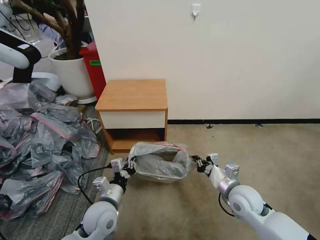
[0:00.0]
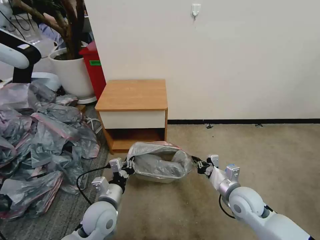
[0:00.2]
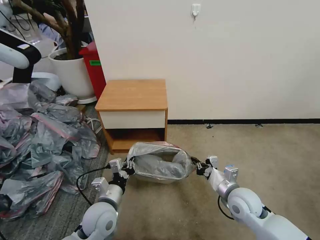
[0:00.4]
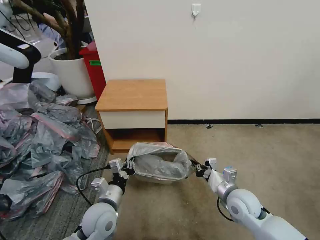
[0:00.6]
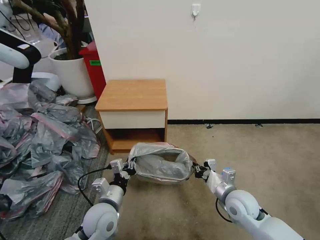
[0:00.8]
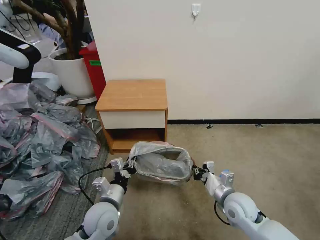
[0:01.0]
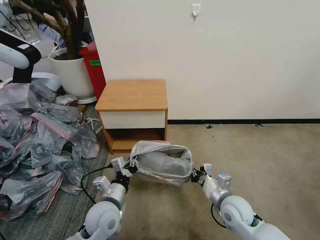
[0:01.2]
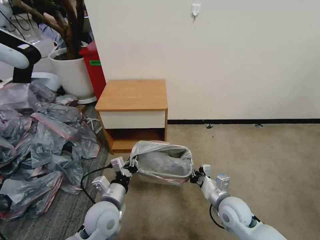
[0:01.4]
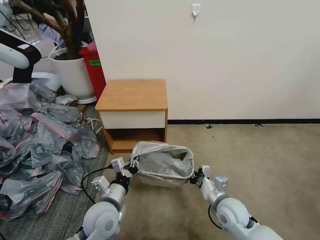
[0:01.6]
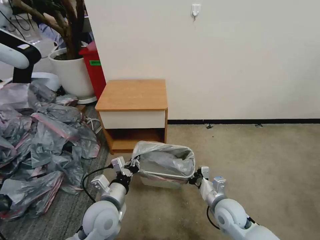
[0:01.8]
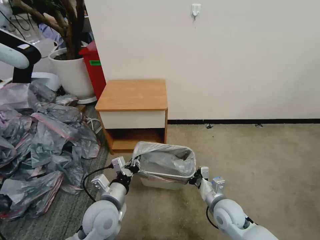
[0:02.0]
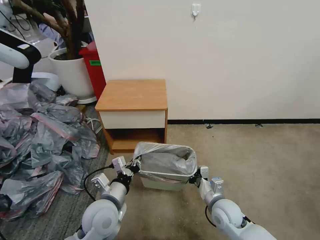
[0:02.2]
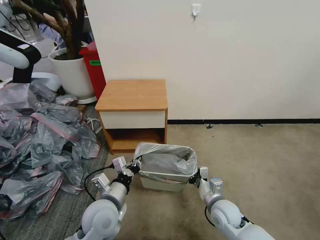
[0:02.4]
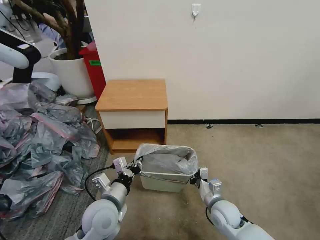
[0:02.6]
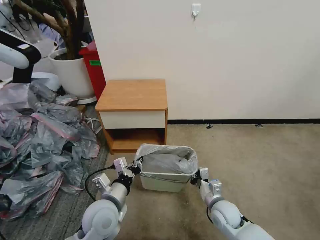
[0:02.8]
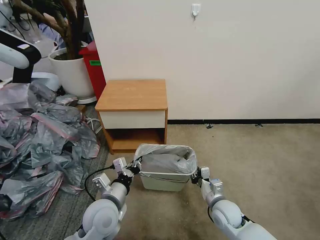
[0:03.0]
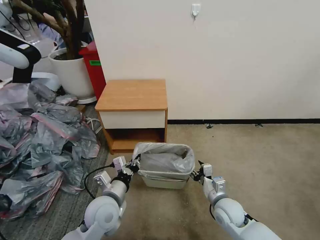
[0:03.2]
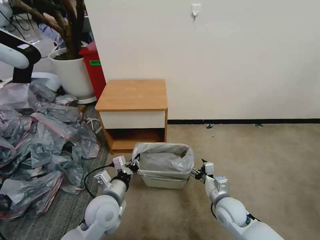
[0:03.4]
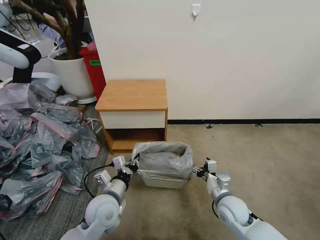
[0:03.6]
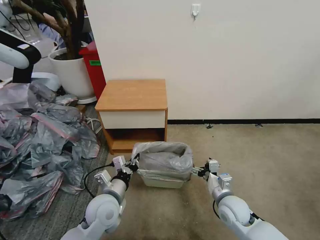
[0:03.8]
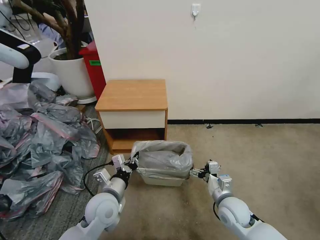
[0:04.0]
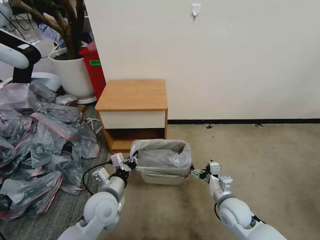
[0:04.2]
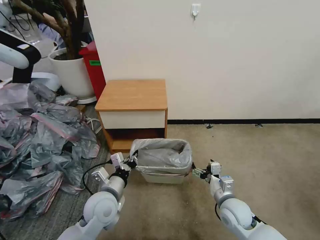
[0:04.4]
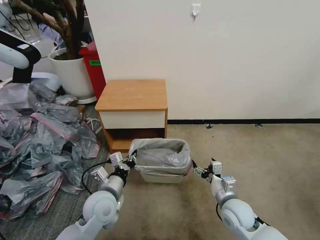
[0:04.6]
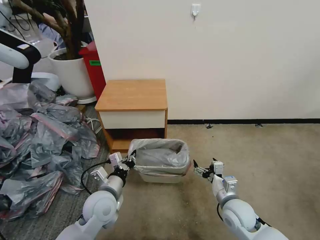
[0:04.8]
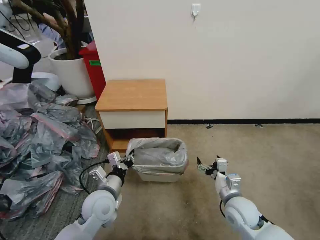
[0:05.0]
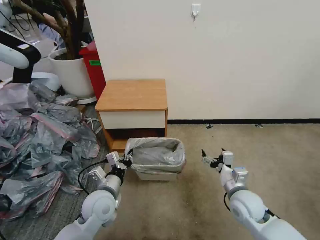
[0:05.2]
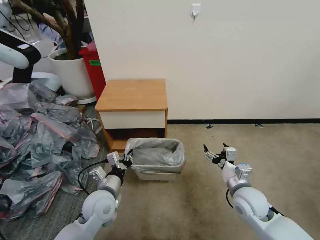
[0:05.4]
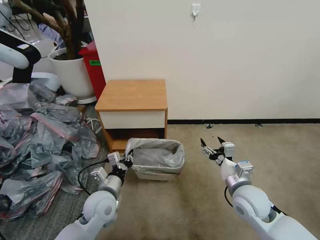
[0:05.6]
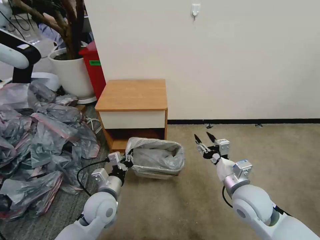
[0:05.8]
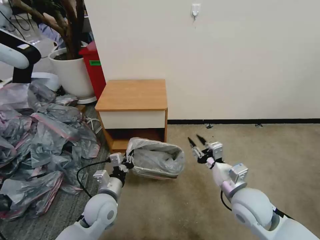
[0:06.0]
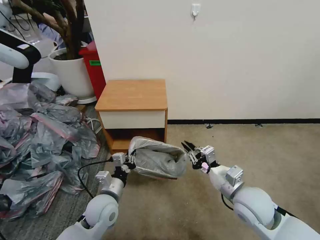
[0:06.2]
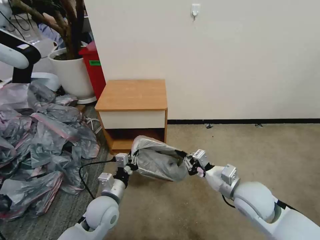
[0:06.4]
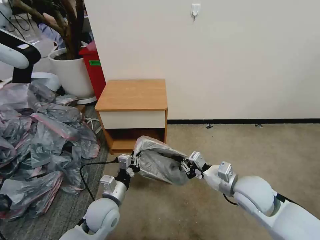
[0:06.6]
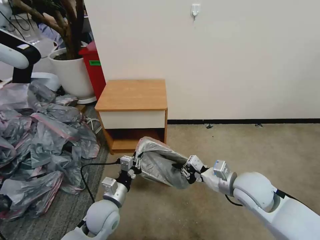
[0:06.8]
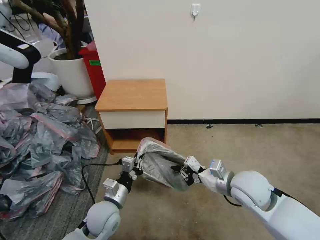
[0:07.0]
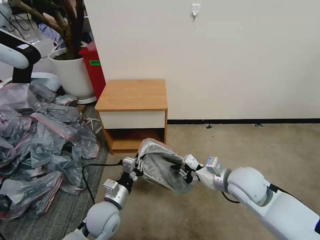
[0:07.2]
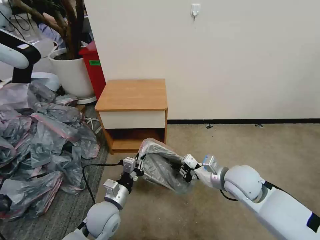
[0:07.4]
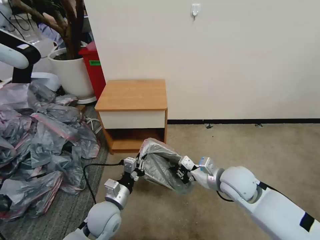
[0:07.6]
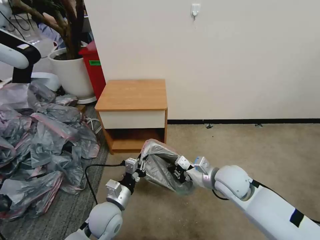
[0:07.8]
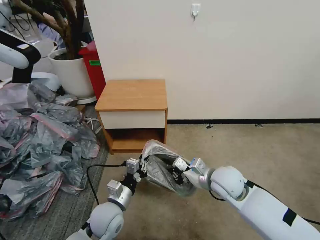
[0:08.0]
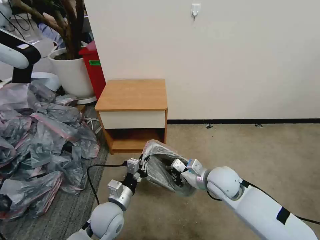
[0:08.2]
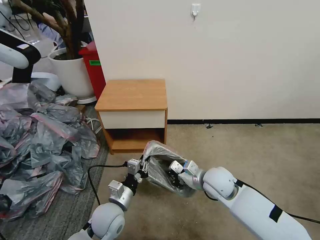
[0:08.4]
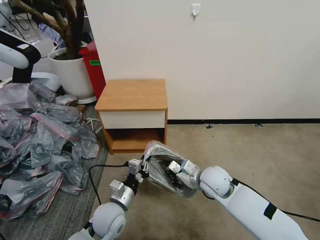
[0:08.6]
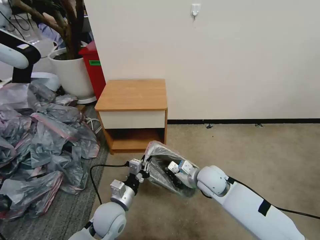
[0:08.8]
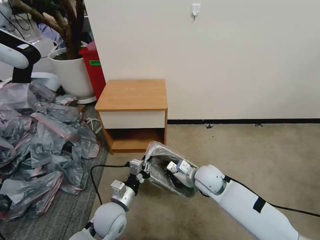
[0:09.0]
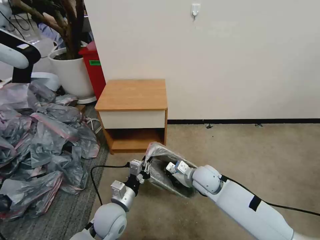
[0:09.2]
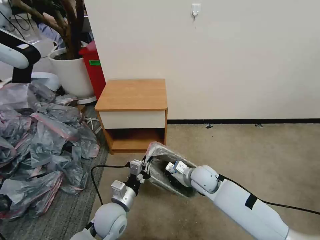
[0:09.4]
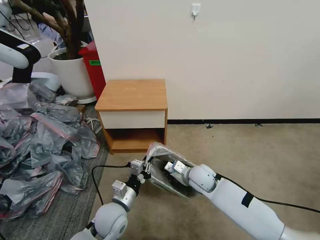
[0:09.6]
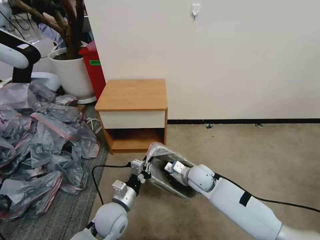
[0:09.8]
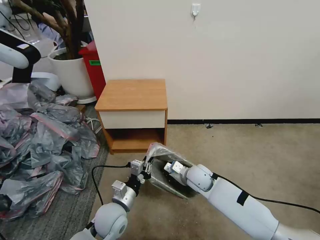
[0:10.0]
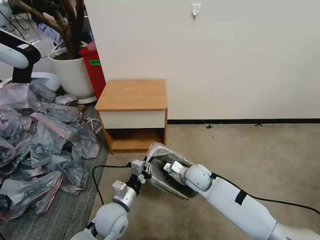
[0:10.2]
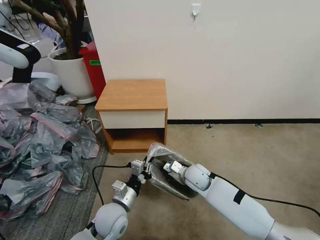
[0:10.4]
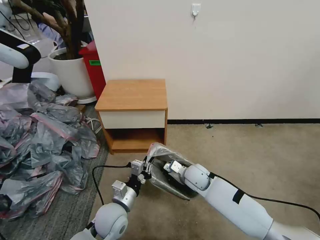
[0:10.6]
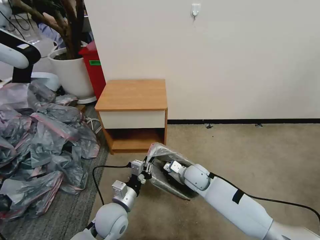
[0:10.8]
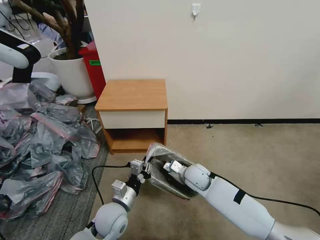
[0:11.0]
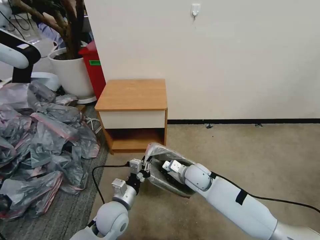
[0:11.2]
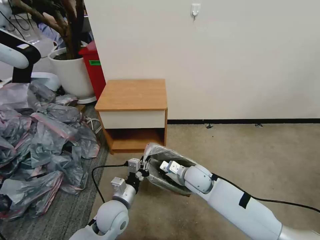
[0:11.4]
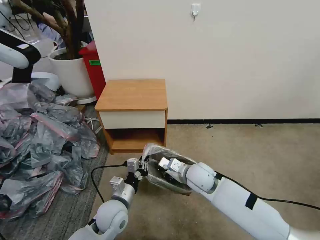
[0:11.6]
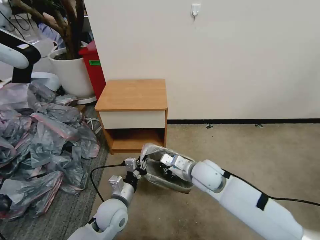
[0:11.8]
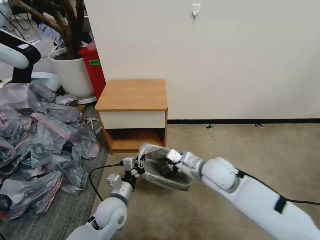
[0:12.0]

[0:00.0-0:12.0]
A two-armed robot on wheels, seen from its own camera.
Task of the whole recording: Pick up the garbage bag from the table and place it over the trash can.
0:00.0 to 0:01.6: The right gripper shifts by roughly 5 cm.
0:01.6 to 0:03.0: There are only small adjustments of the grippers.
0:03.0 to 0:04.4: The right gripper opens its fingers.
0:04.4 to 0:06.0: The right gripper heads upward, covering about 10 cm, and closes its fingers.
0:06.0 to 0:07.6: The right gripper shifts about 5 cm forward.
0:07.6 to 0:09.0: The right gripper goes some 10 cm downward and to the left.
0:09.0 to 0:10.4: The right gripper moves roughly 5 cm.
0:10.4 to 0:12.0: The right gripper goes approximately 15 cm upward.

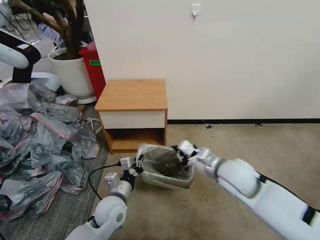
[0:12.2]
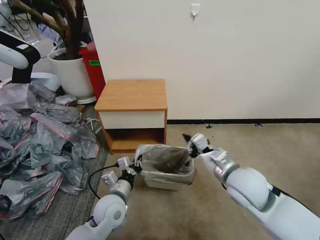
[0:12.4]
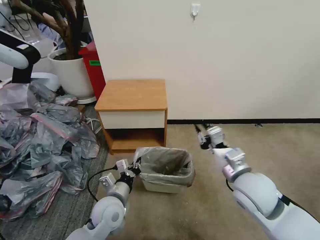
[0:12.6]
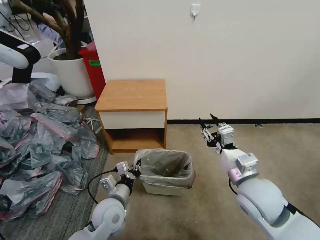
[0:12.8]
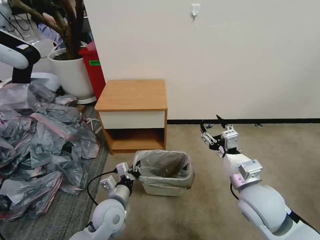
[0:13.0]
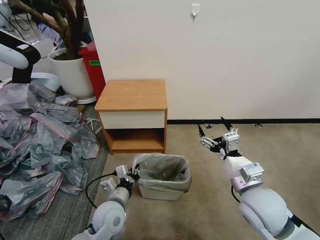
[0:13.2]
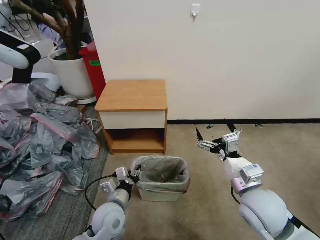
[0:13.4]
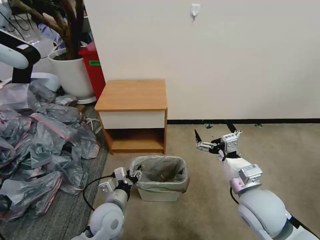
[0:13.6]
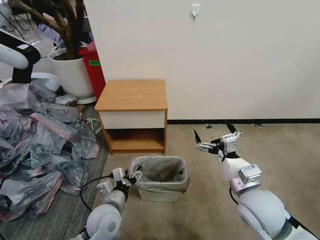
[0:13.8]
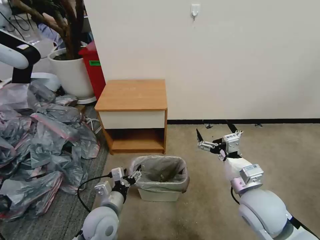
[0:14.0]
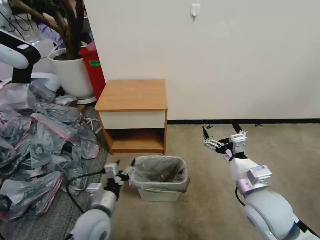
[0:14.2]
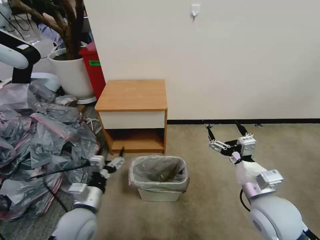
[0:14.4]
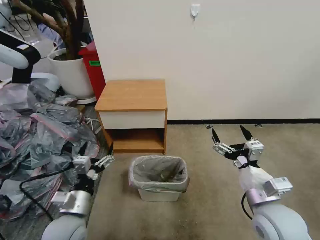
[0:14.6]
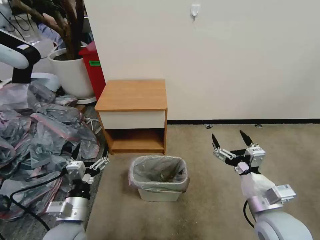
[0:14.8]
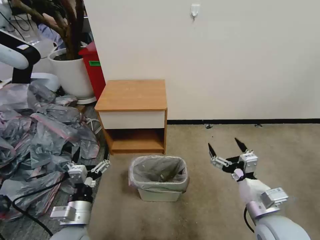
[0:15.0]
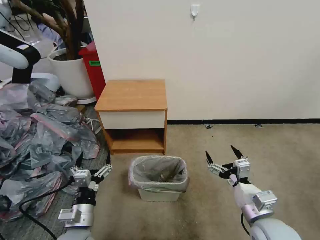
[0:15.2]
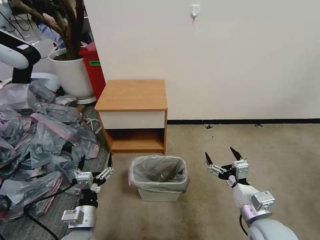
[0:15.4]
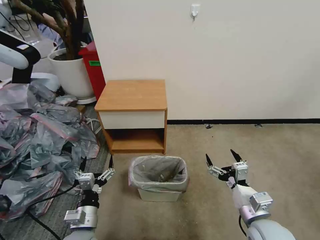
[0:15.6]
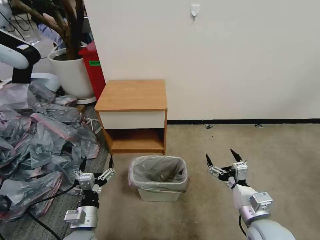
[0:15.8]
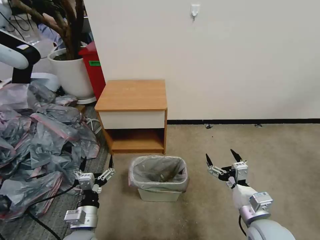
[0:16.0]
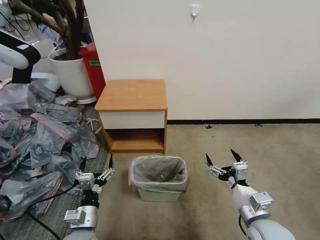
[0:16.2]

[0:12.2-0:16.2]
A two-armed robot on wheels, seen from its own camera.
Task of the whole recording: Pick up the garbage bag from the table and place it over the trash can.
0:12.2 to 0:13.6: The left gripper opens up. The right gripper travels backward by about 10 cm, and opens up.
0:13.6 to 0:14.8: The left gripper is displaced to the left, backward and upward by roughly 10 cm, and opens up, while the right gripper moves roughly 5 cm.
0:14.8 to 0:16.2: The grippers both shift downward by some 5 cm.
